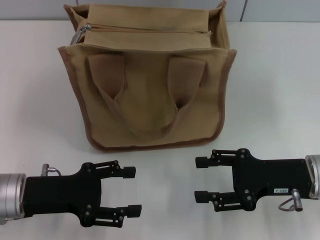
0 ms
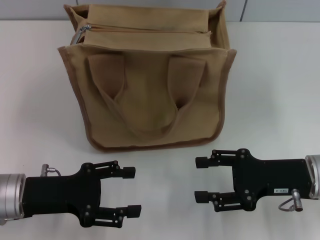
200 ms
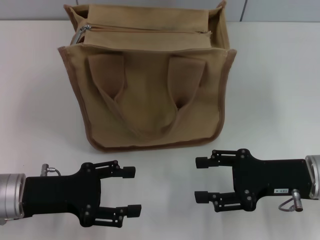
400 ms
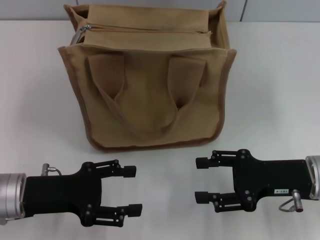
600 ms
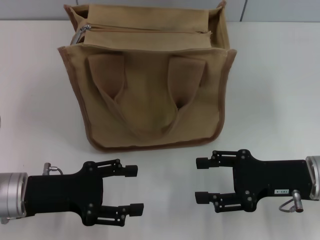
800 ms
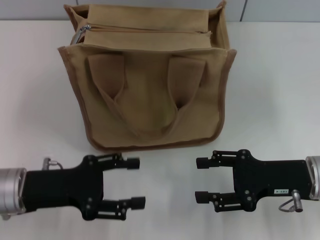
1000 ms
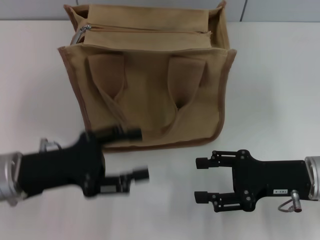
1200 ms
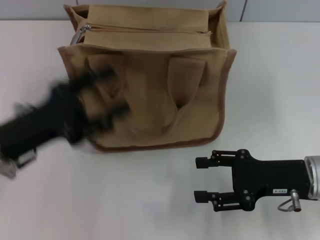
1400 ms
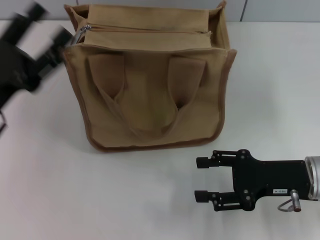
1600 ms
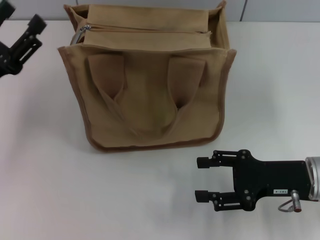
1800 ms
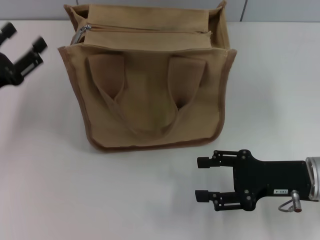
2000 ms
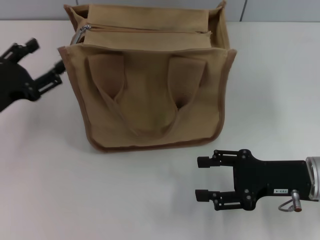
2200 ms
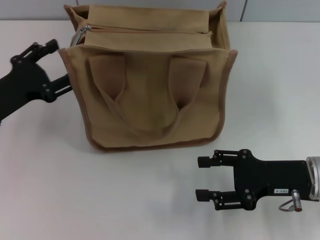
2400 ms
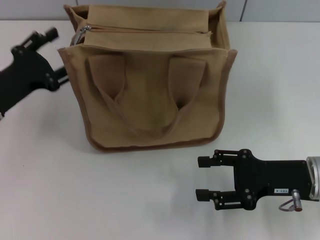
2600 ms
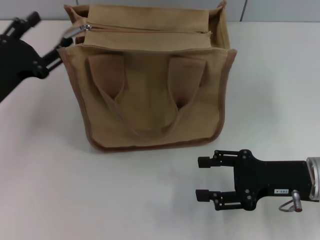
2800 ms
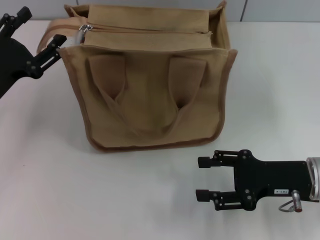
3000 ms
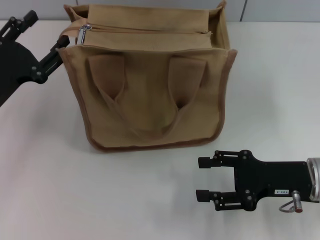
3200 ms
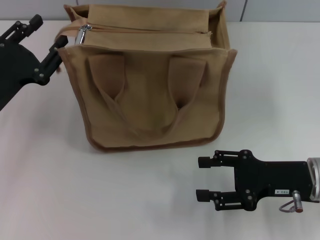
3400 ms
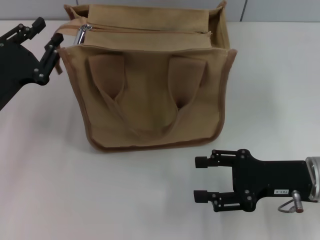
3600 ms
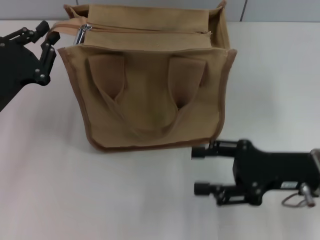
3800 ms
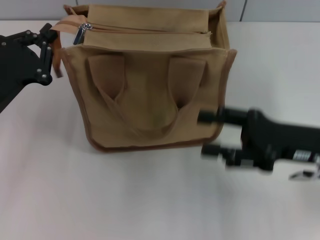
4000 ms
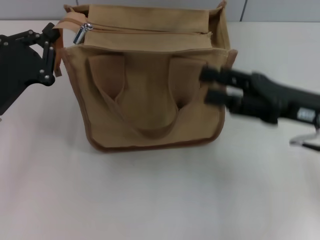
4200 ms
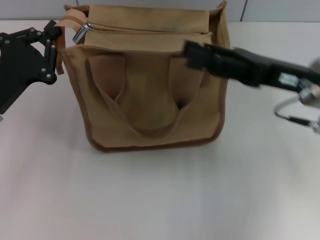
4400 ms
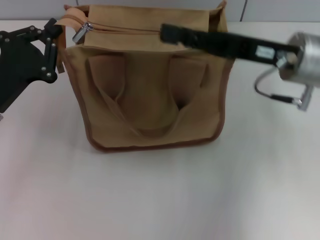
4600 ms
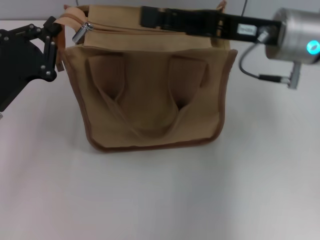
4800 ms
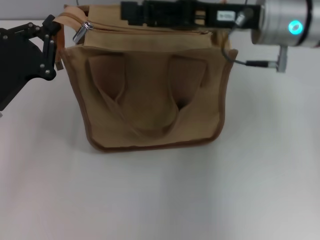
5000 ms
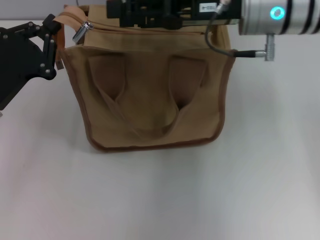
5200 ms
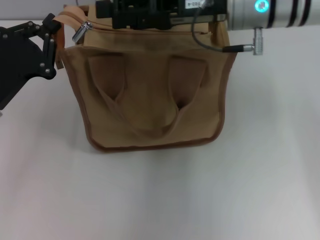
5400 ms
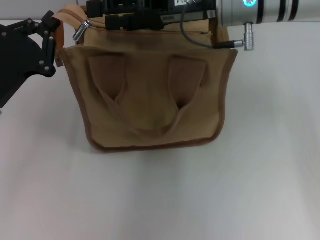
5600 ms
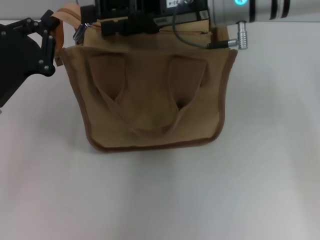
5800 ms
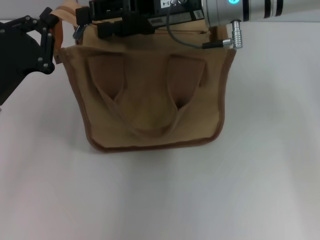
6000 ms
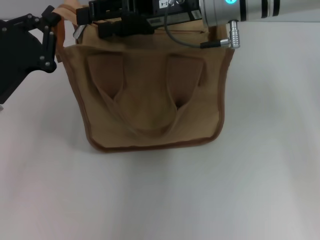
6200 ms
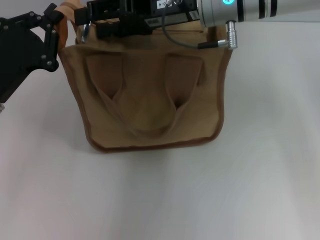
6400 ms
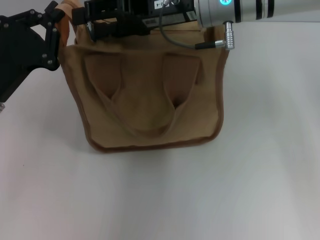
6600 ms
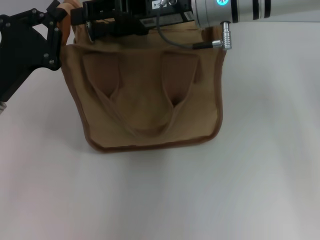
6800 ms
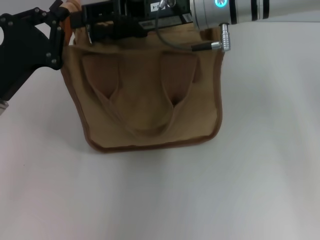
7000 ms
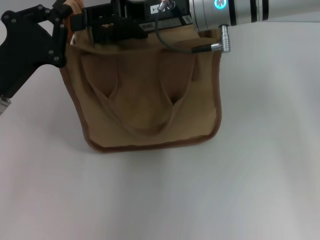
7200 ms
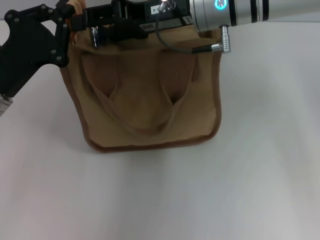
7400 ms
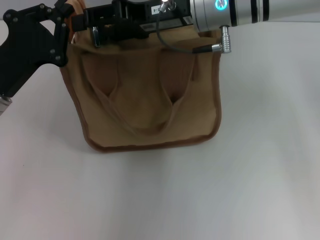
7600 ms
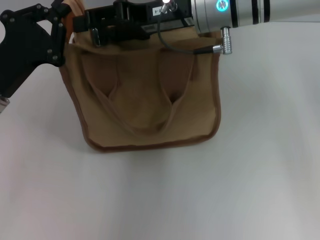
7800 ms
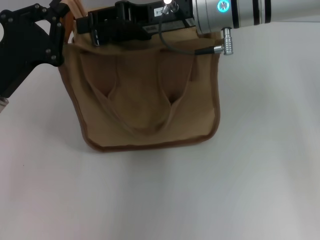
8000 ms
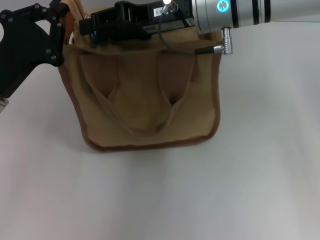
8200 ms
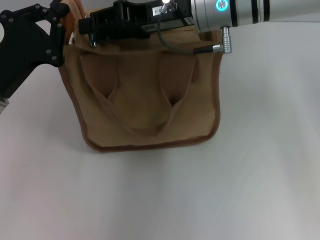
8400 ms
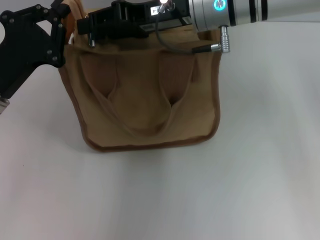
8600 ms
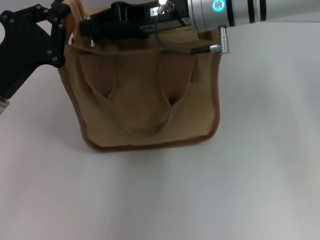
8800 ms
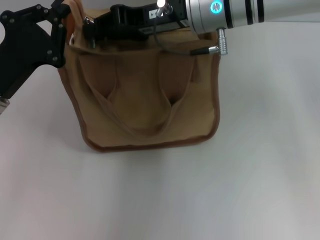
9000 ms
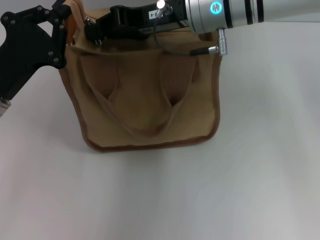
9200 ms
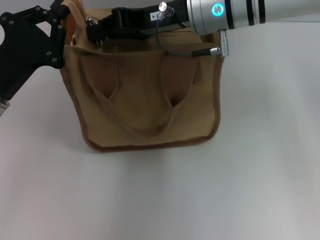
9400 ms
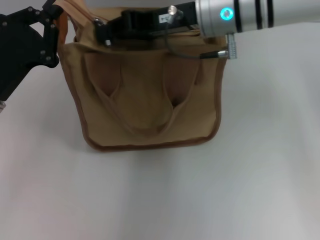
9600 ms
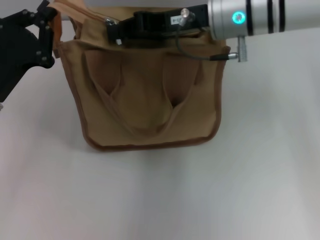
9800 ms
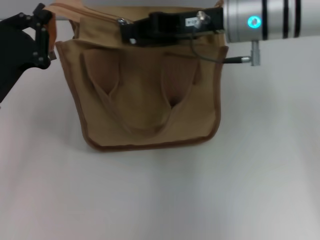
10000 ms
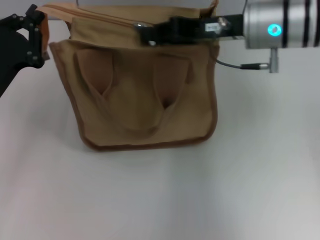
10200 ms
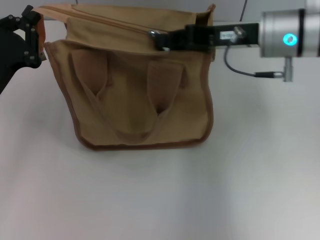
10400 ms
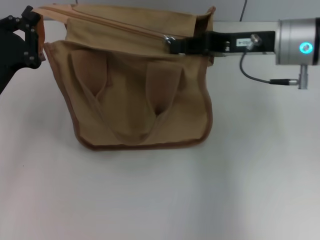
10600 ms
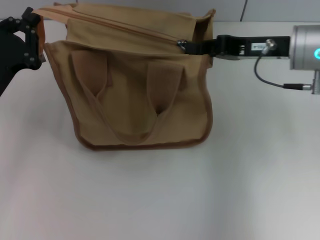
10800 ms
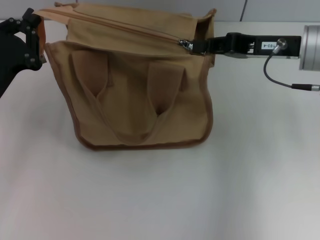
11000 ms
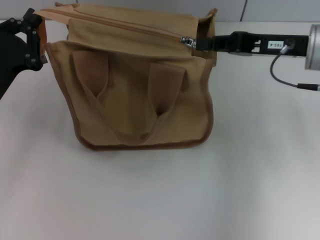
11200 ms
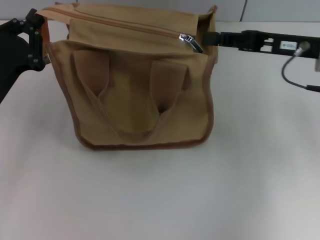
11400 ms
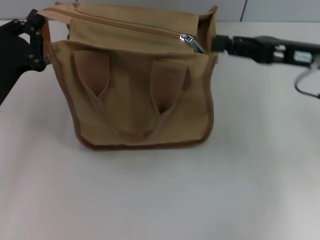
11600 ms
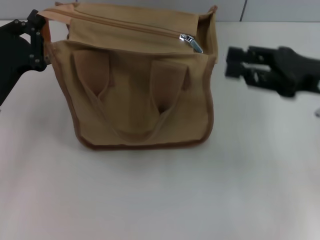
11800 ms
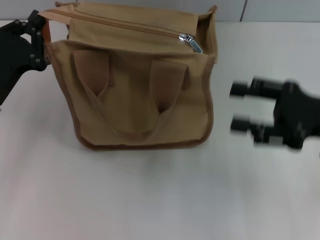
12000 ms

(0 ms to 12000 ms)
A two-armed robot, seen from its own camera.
Step, 0 ms - 11200 ms: Pull up the zipper with your right hand.
0 ms - 1600 ms: The left gripper shifts by approximately 5 cm.
3000 ms - 4400 ms: The left gripper closes up, while the right gripper shifts roughly 10 cm upward and forward.
4400 ms - 6000 ms: The right gripper shifts approximately 15 cm to the left, forward and upward.
6000 ms - 7600 ms: The grippers make only small movements.
7600 ms - 9000 ms: The right gripper closes its fingers.
9000 ms - 10400 ms: The right gripper shifts roughly 10 cm to the right.
10400 ms - 12000 ms: The right gripper is displaced backward and to the right by approximately 15 cm, and opens.

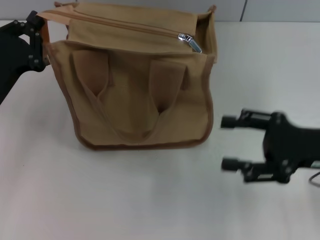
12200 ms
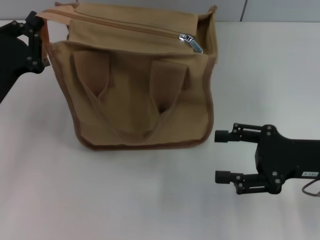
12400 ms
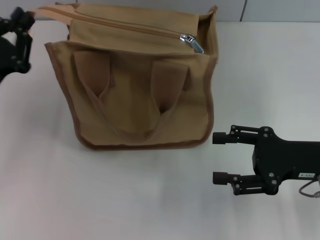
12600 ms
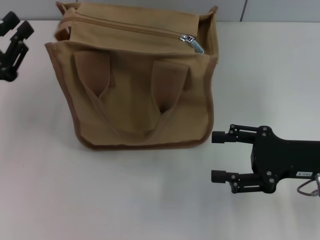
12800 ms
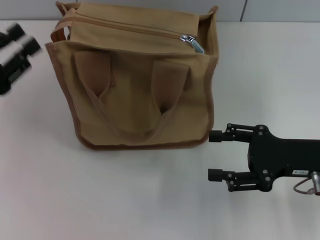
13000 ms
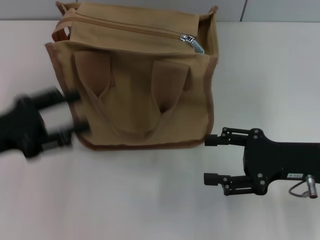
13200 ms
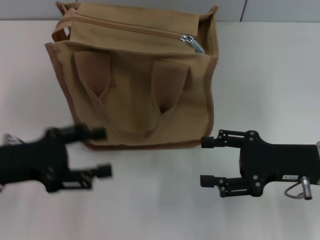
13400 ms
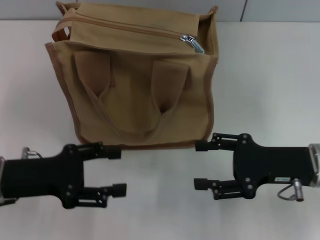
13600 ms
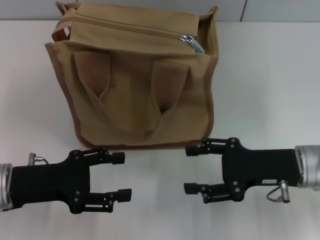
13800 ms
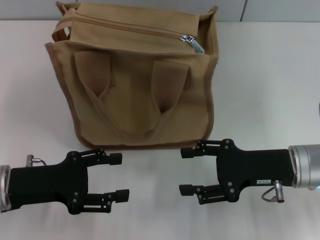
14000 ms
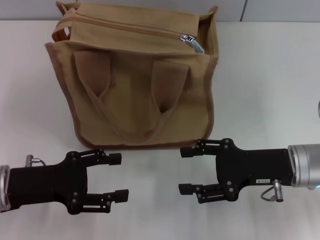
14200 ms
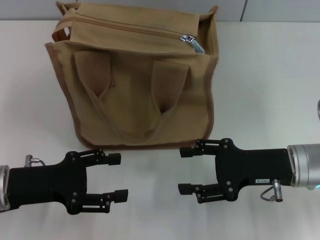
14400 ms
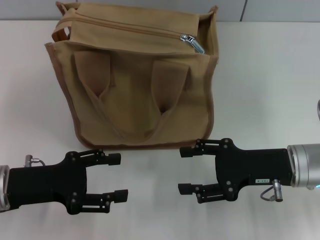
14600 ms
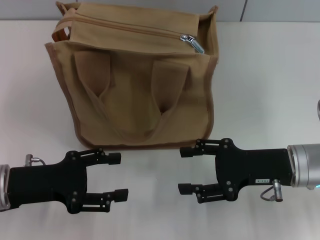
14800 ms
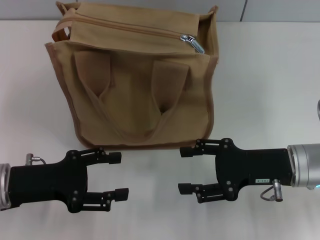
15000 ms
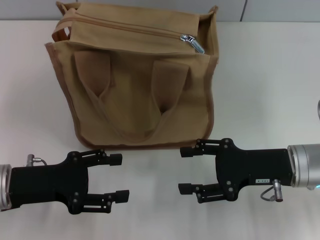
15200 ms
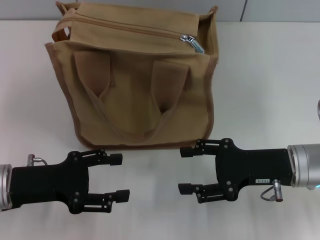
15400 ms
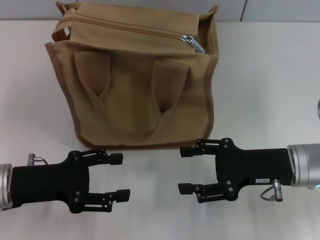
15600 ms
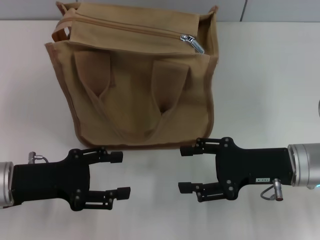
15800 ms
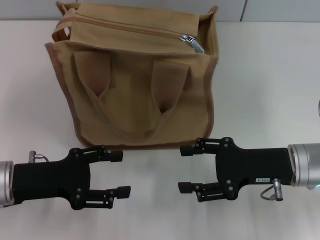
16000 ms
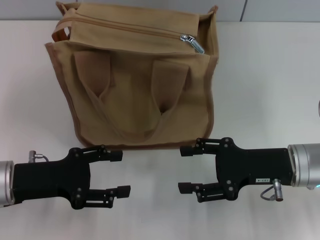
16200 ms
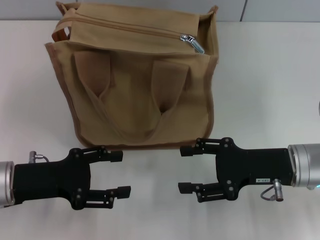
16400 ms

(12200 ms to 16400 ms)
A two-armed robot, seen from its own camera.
12200 ms - 13600 ms: The left gripper is displaced backward by roughly 5 cm, and opens.
13600 ms - 15000 ms: The grippers make only small movements.
15000 ms - 16400 ms: Both grippers stay about where they are.

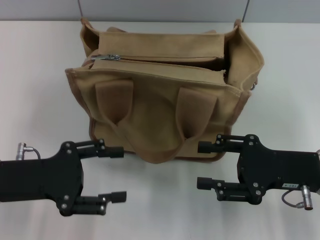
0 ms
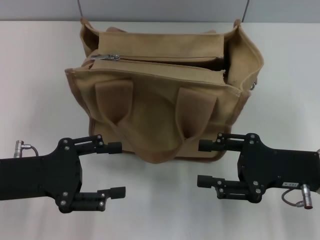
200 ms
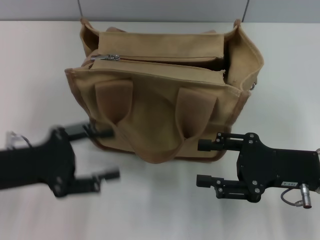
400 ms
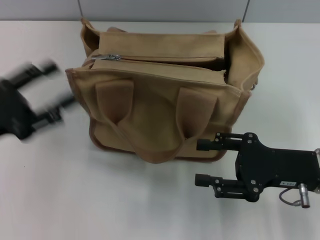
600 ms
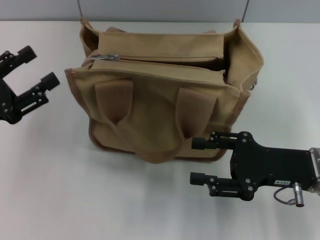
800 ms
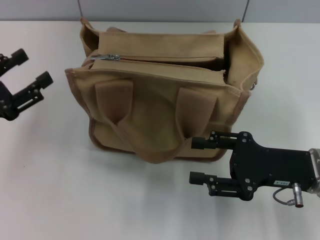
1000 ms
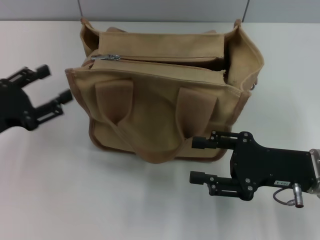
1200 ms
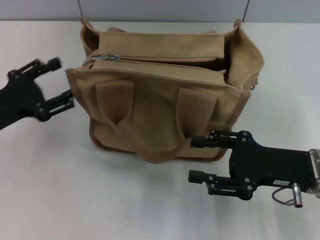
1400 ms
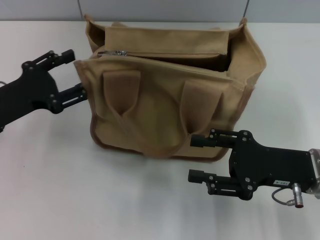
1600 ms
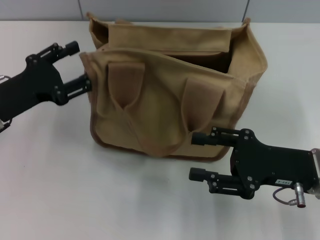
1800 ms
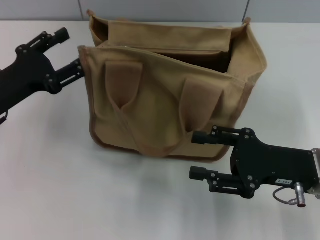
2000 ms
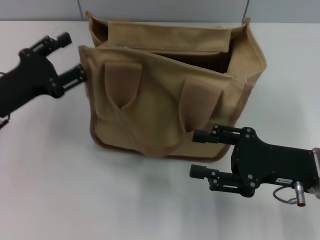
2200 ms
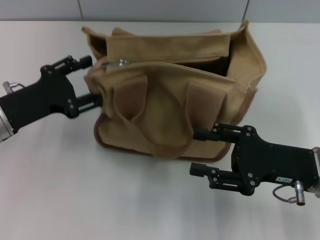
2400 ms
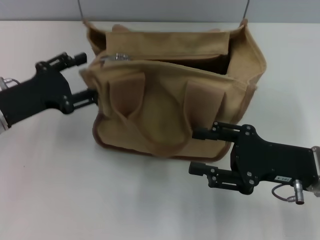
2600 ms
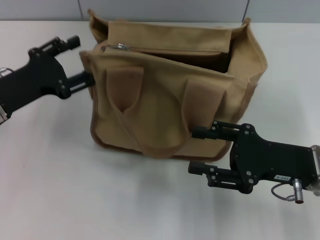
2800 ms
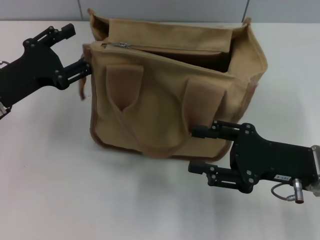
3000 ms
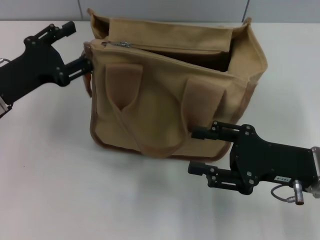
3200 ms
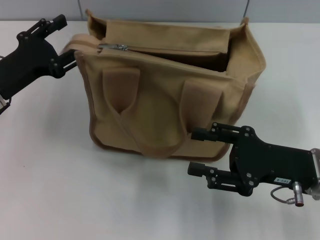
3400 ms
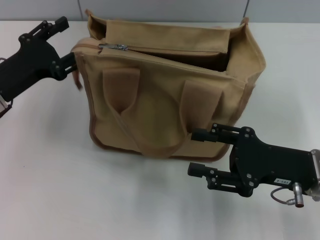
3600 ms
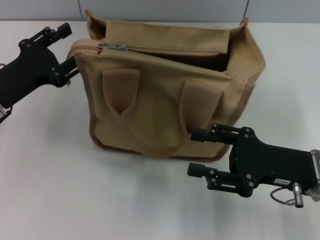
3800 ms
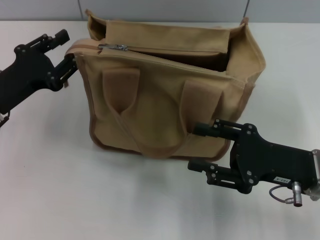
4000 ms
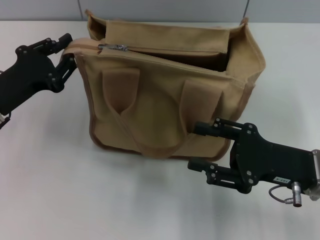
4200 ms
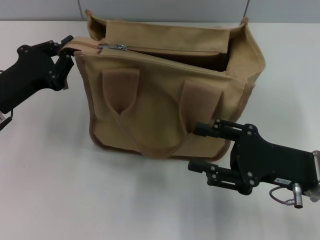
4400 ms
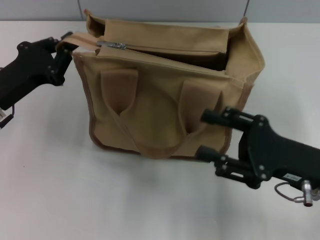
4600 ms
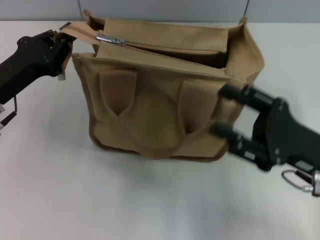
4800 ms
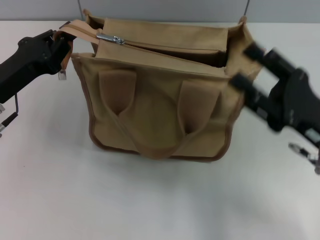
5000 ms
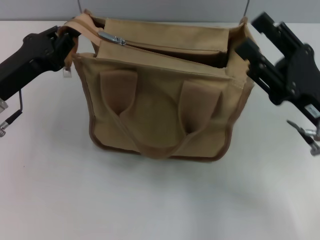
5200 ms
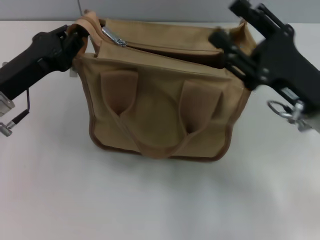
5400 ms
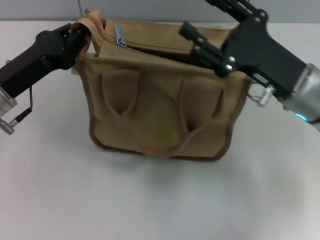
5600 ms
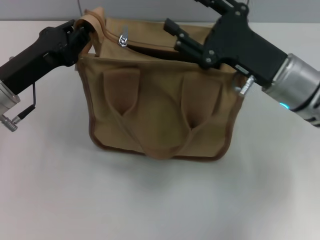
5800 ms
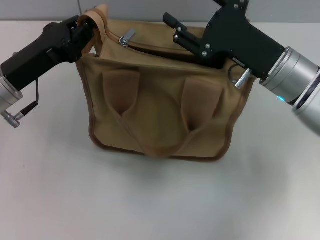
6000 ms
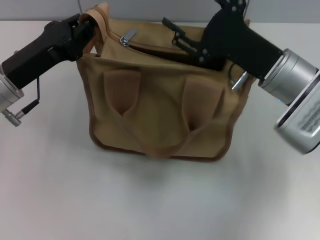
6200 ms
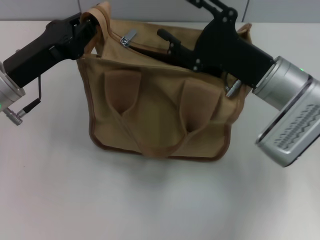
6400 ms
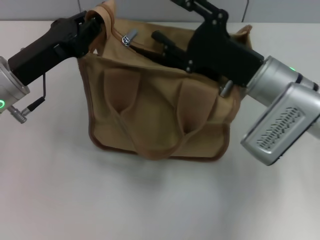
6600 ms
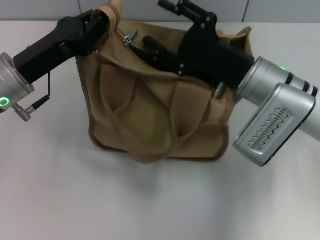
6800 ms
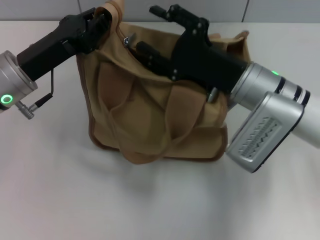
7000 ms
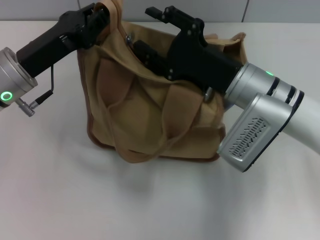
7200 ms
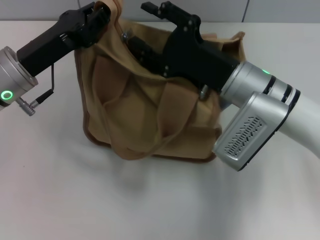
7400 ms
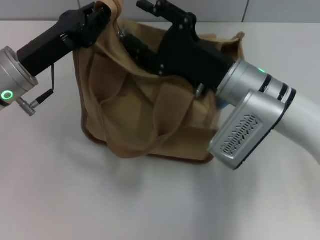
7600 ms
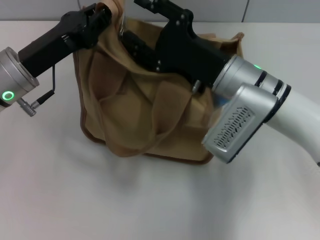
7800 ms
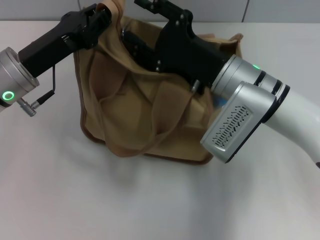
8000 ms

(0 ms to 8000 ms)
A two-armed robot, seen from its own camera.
0 ms - 1600 ms: The left gripper shifts roughly 5 cm forward.
1600 ms - 3200 ms: The grippers move only a little.
3200 ms - 4800 ms: The left gripper closes.
4800 ms - 6400 ms: The right gripper goes about 10 cm forward and to the left.
6400 ms - 8000 ms: The right gripper shifts roughly 5 cm to the left.
